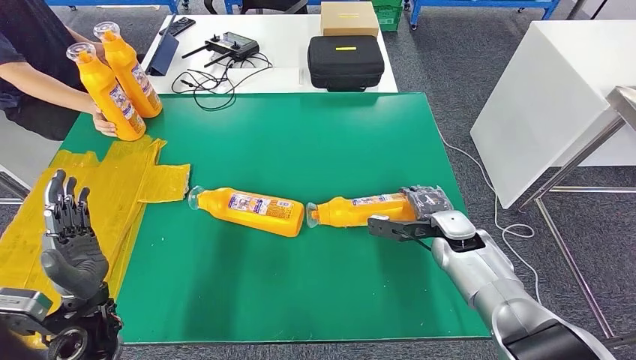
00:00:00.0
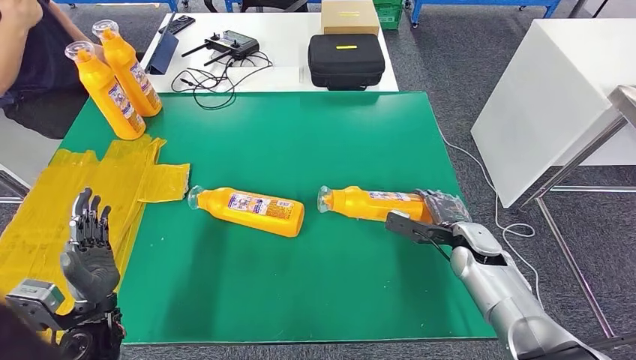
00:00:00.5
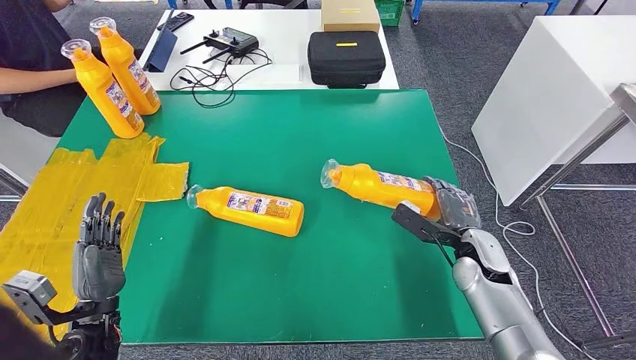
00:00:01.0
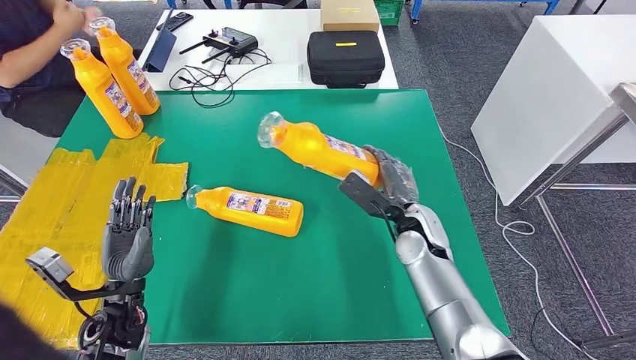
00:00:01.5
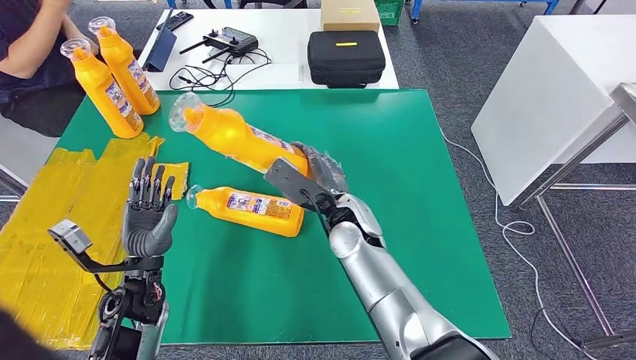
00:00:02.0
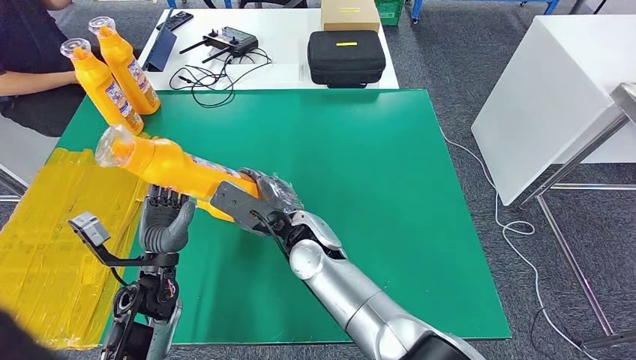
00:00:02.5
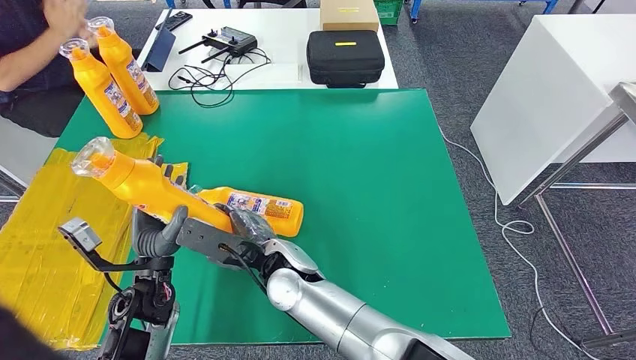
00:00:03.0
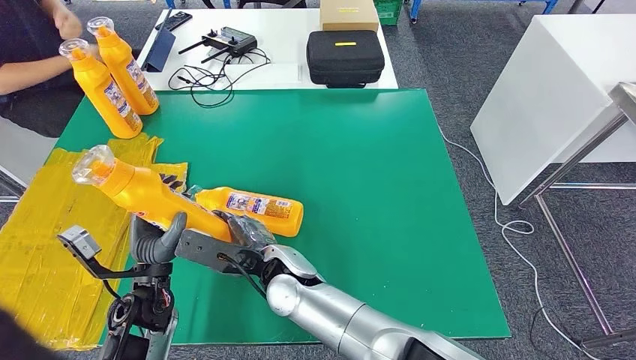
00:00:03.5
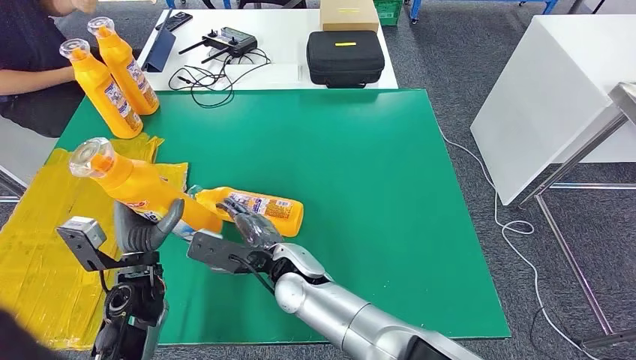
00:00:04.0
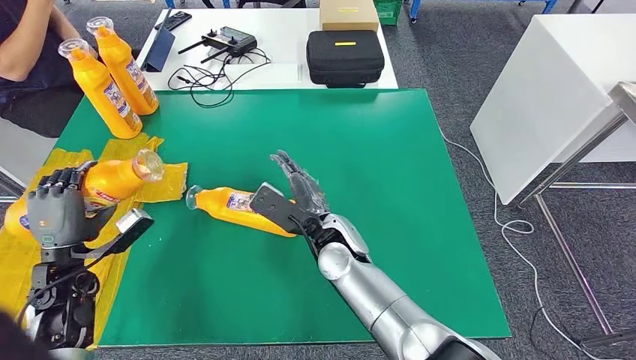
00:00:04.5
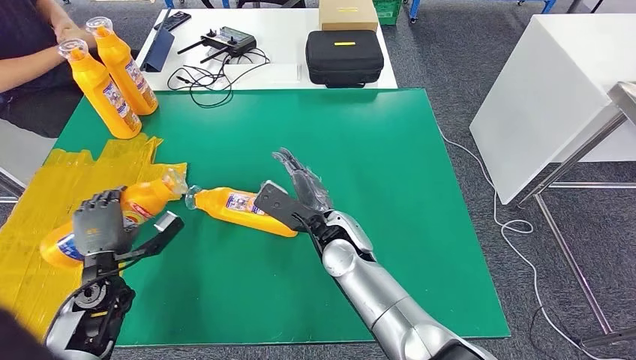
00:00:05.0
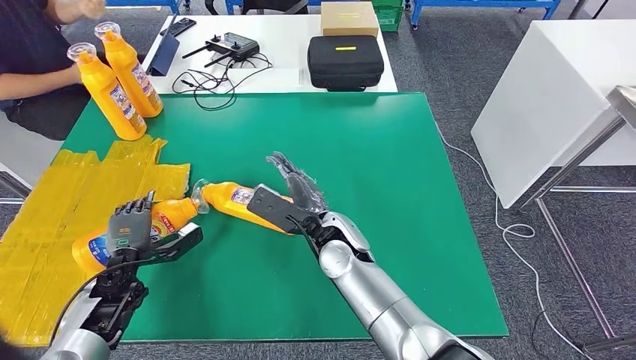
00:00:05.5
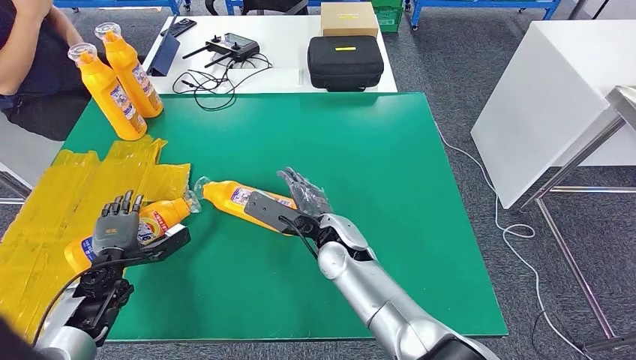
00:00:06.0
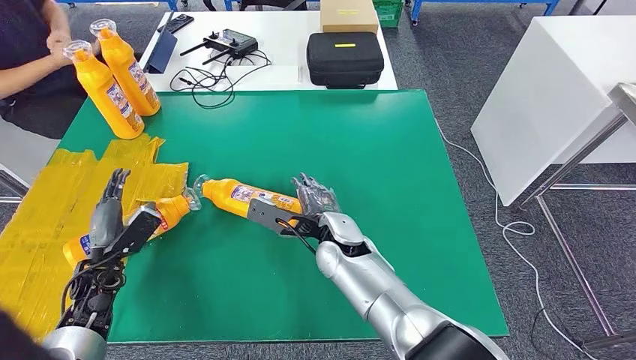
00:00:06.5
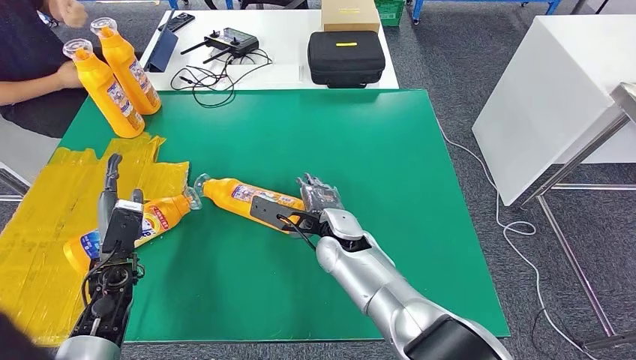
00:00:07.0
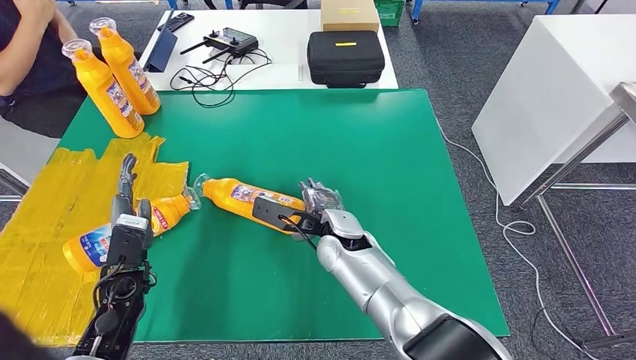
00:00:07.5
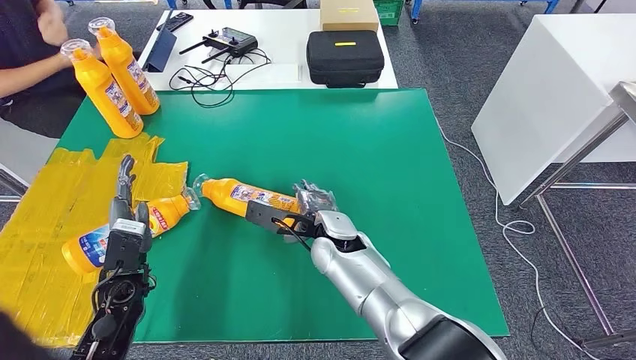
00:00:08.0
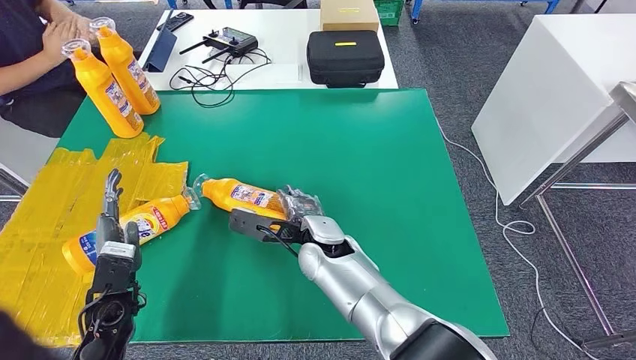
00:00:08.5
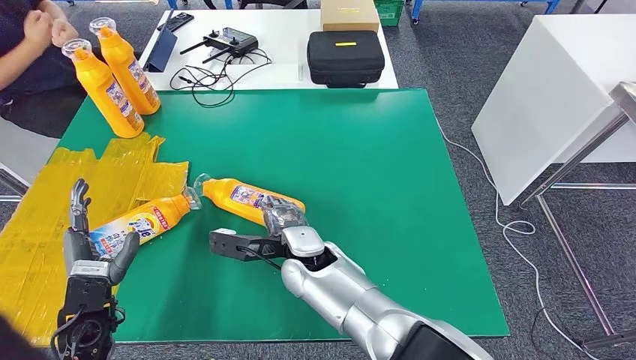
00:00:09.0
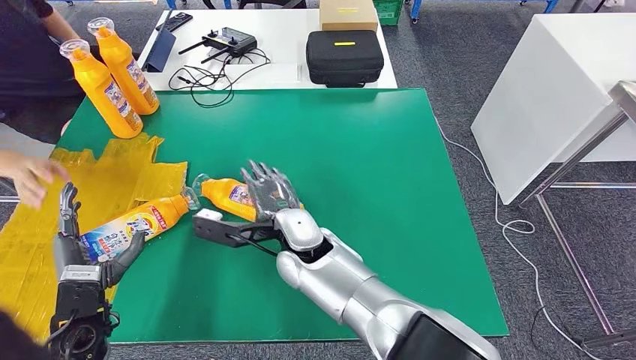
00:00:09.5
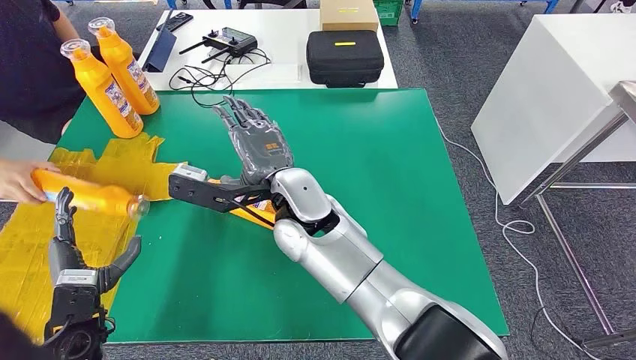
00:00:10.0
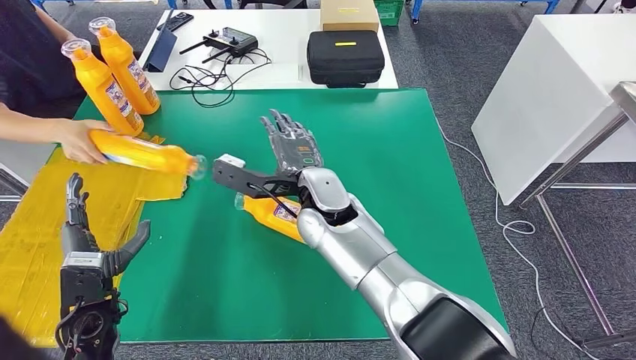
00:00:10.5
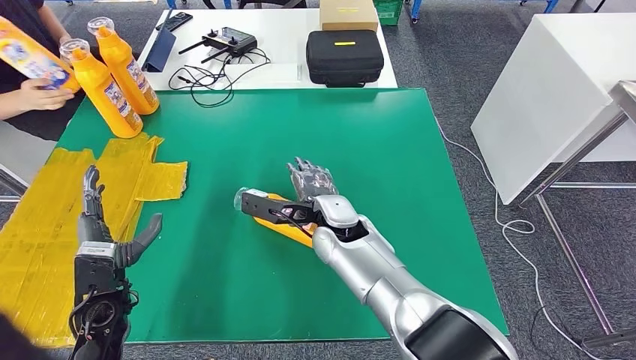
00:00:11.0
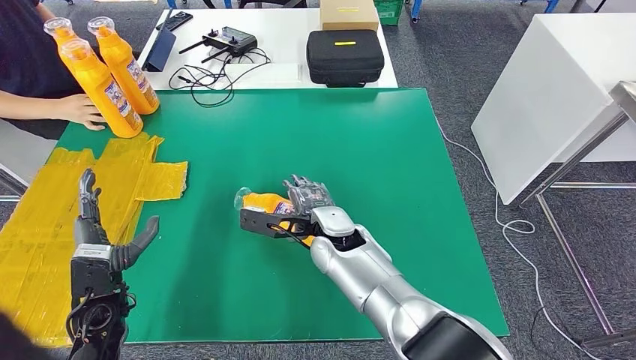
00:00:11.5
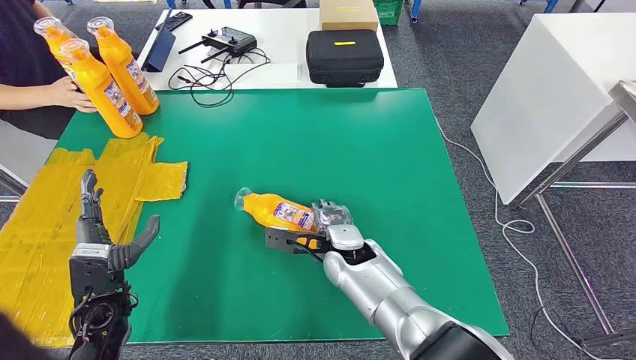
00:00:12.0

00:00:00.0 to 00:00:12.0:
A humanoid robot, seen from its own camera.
Step, 00:00:01.0 to 00:00:02.5: Pick up the fast-moving consumer goods bottle from the table.
Step, 00:00:03.0 to 00:00:06.5: Flip the fast-moving consumer goods bottle to the front side.
00:00:02.0 to 00:00:04.0: The right hand travels to the left by roughly 5 cm.
00:00:08.0 to 00:00:10.0: The right hand shifts about 15 cm upward and to the left. Meanwhile the left hand moves backward, some 5 cm.
00:00:10.0 to 00:00:12.0: The right hand is displaced downward and to the right by some 15 cm.

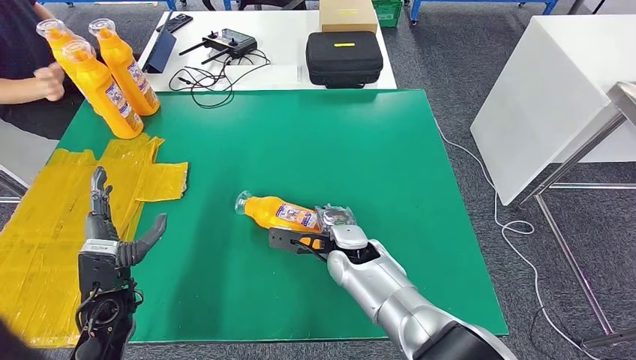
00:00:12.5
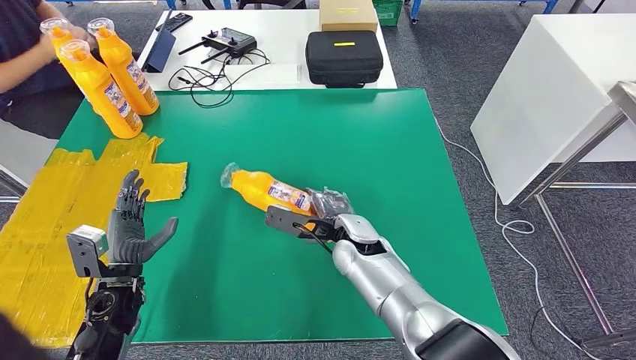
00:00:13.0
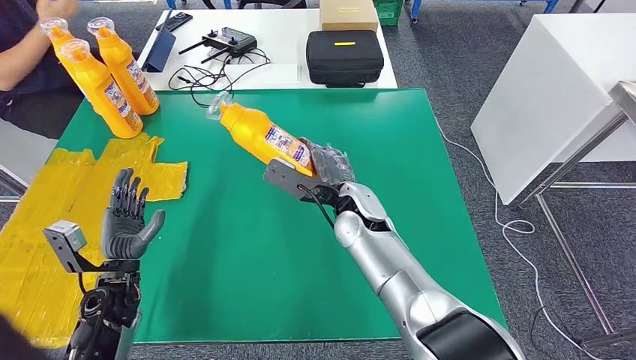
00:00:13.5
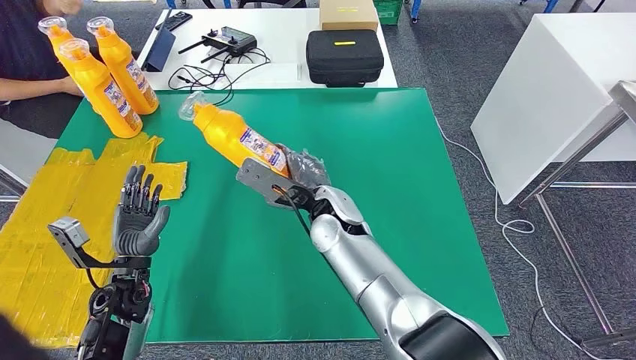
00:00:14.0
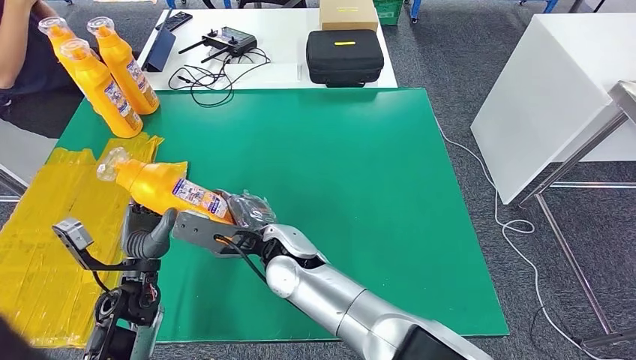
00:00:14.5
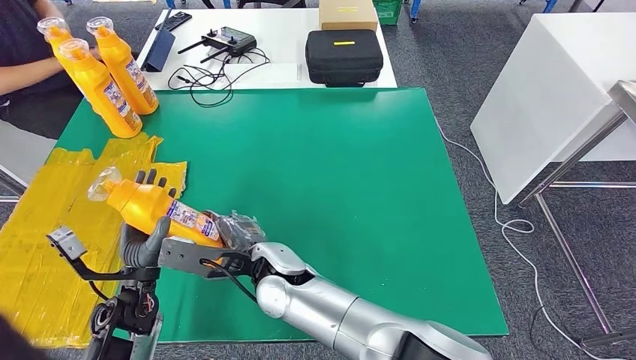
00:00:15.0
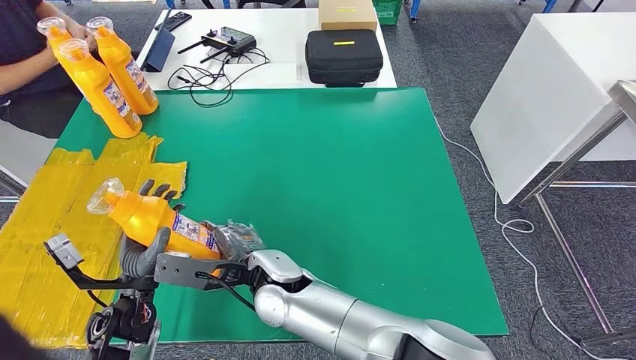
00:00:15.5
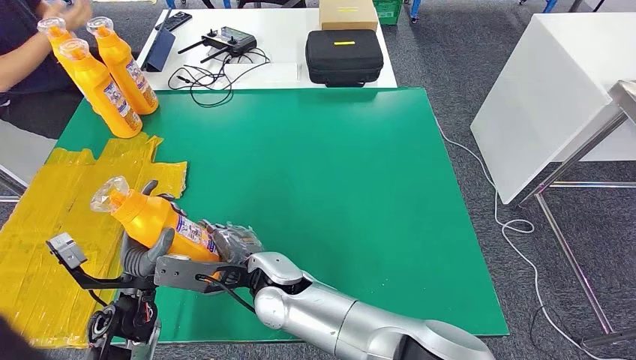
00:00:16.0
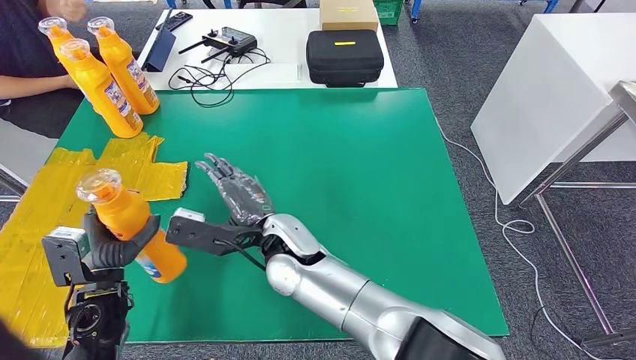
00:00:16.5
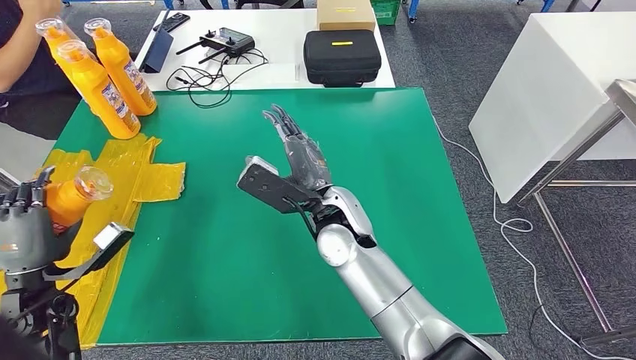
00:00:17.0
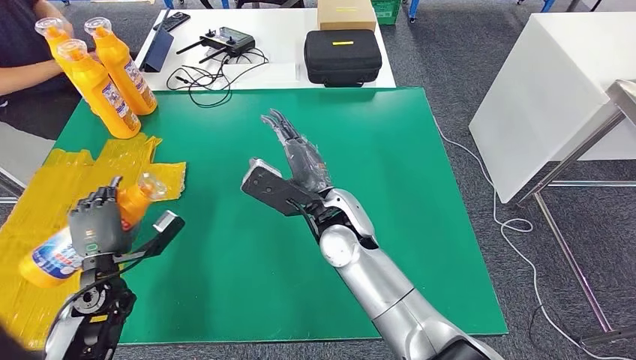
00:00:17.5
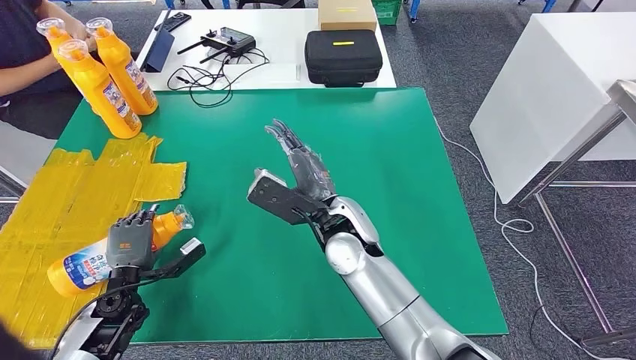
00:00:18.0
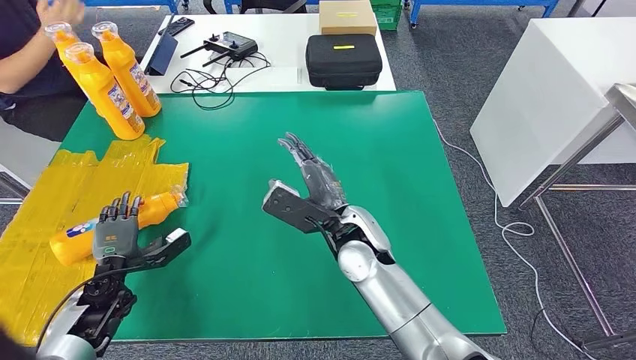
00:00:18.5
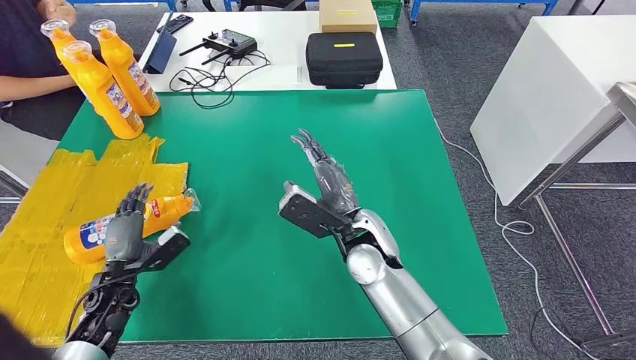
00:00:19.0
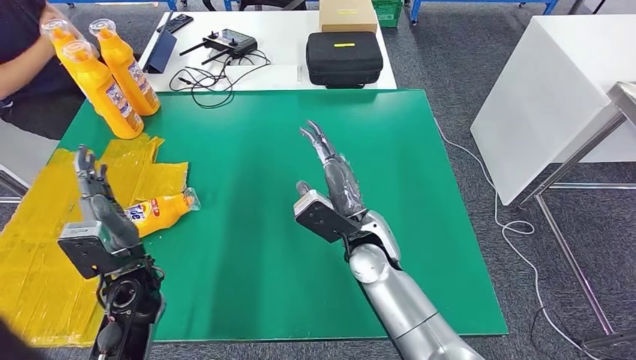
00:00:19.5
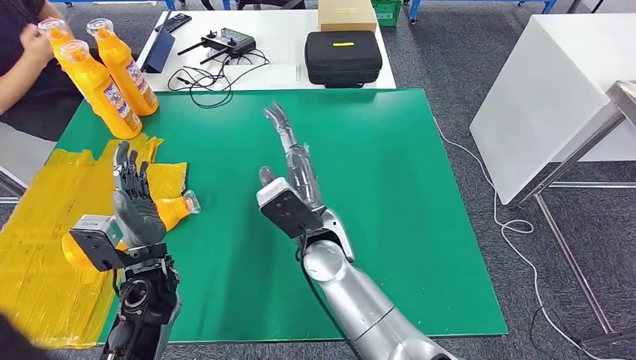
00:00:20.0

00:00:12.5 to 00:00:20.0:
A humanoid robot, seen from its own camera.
Step, 00:00:13.5 to 00:00:20.0: Flip the fast-moving consumer goods bottle to the front side.
00:00:18.0 to 00:00:20.0: The left hand goes roughly 15 cm to the right and upward.
